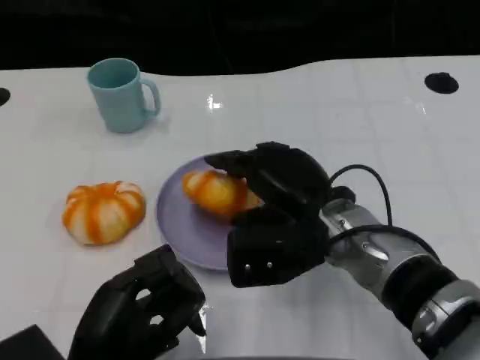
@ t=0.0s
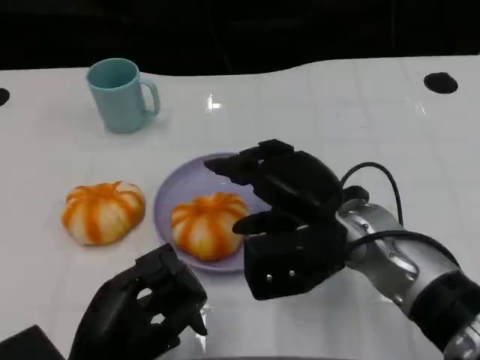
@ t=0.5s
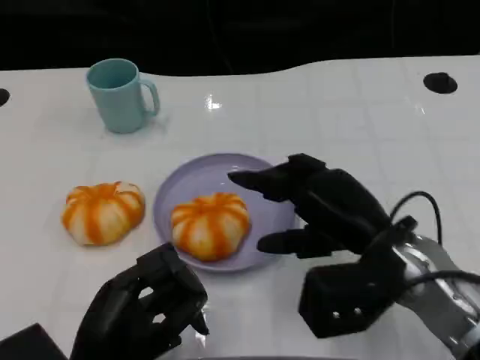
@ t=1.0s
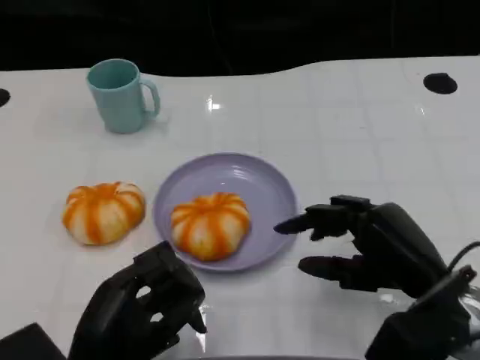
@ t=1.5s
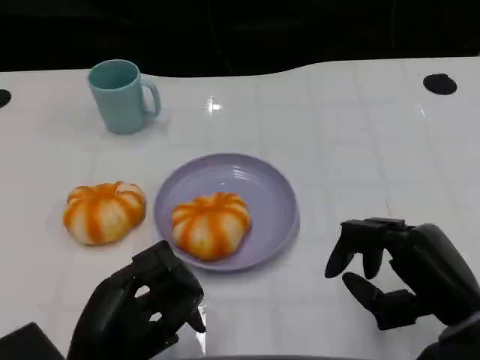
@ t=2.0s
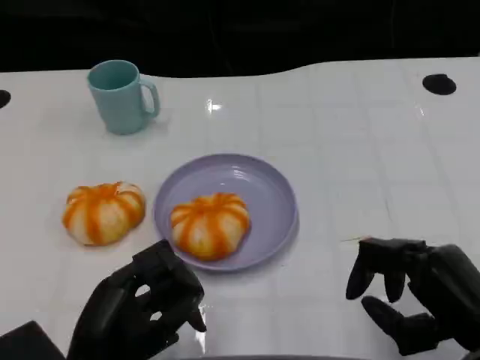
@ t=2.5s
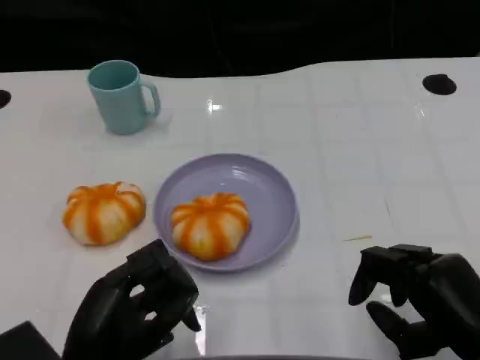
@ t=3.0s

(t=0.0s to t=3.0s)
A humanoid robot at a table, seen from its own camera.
Task of the whole recording: Grasp the bread from the table and place it into the plate.
t=0.0s - t=1.5s: The right hand shifts roughly 15 cm to the right and backward.
t=1.5s - t=3.0s: The right hand travels backward by roughly 5 cm.

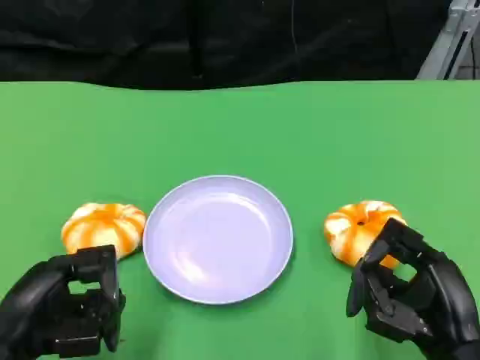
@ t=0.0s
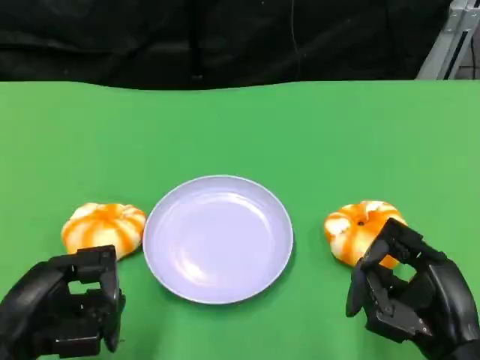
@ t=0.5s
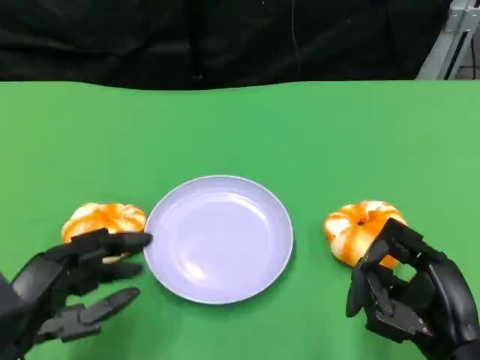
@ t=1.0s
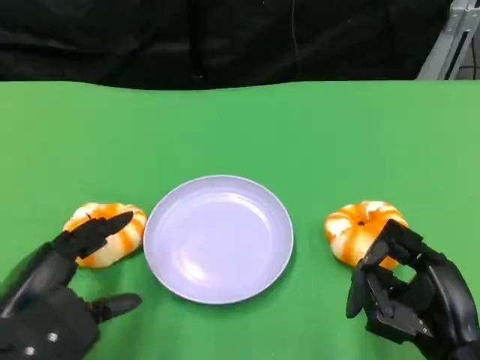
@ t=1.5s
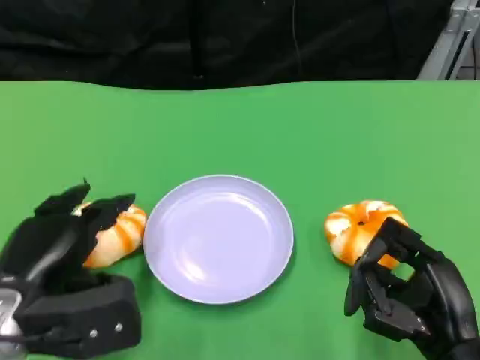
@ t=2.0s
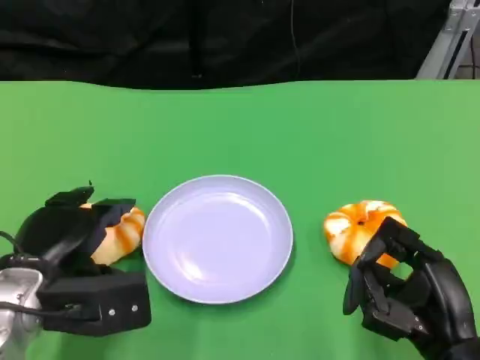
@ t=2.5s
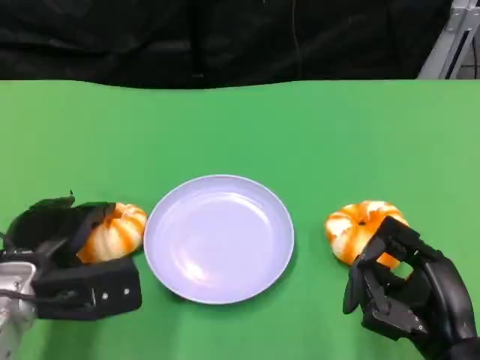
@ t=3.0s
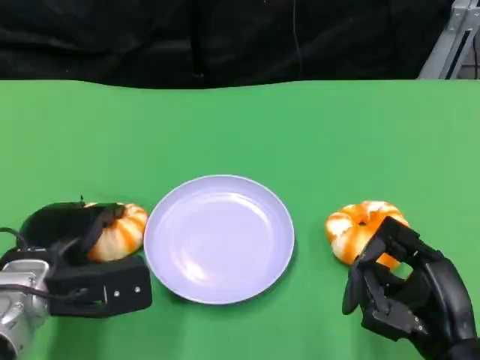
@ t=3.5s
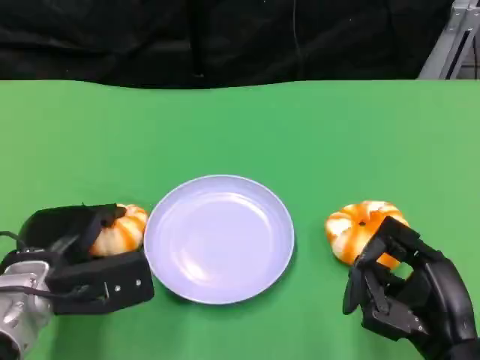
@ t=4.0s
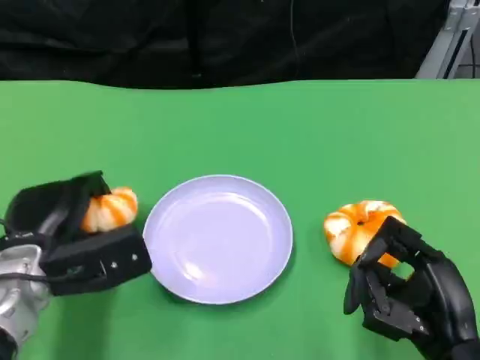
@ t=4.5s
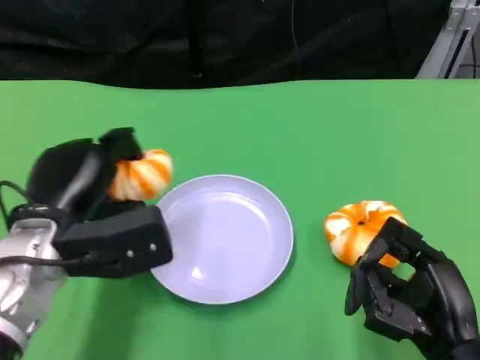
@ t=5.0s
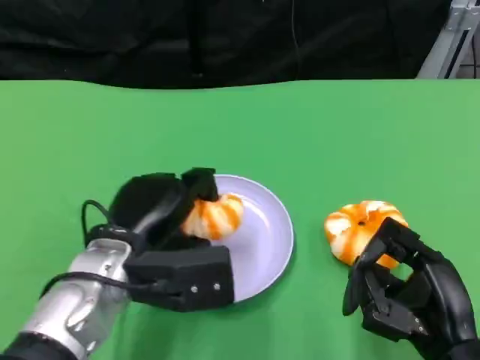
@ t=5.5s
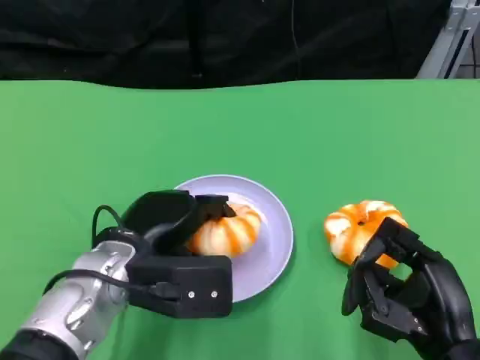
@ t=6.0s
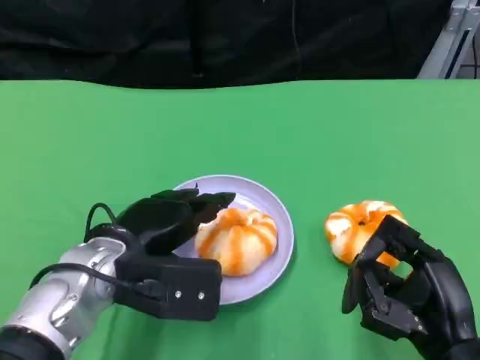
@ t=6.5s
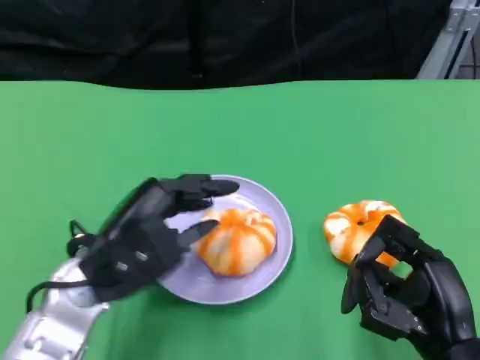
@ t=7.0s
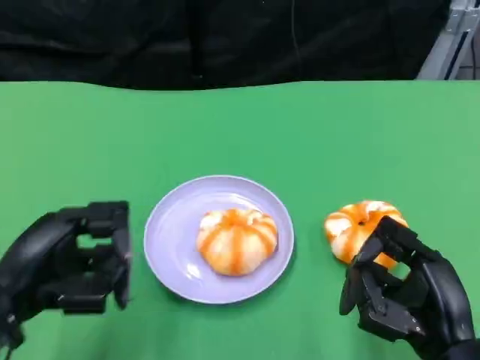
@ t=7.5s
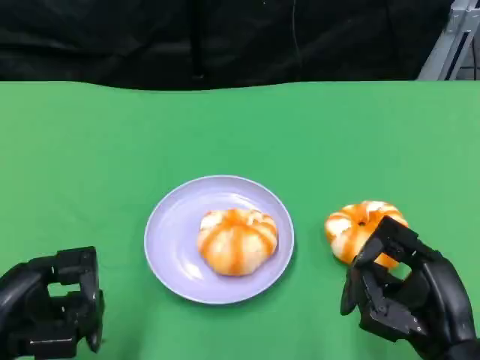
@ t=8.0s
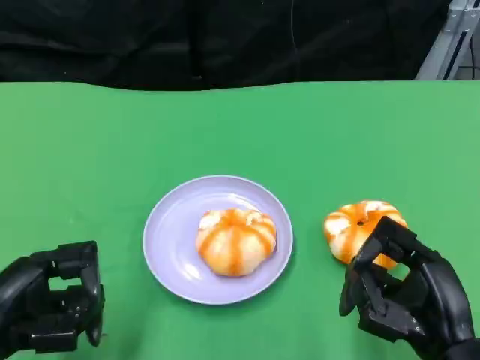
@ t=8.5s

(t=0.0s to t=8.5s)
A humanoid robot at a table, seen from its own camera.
Task of the whole recording: Grasp the bread from the table and place it into the plate.
t=0.0s - t=2.0s: The left hand moves approximately 5 cm.
t=2.0s - t=4.0s: The left hand shifts by approximately 5 cm.
t=4.0s - t=6.5s: The left hand moves to the right, roughly 5 cm.
t=6.5s - t=8.5s: The left hand moves to the left and backward, roughly 15 cm.

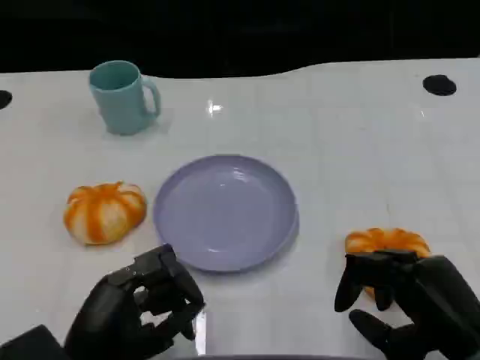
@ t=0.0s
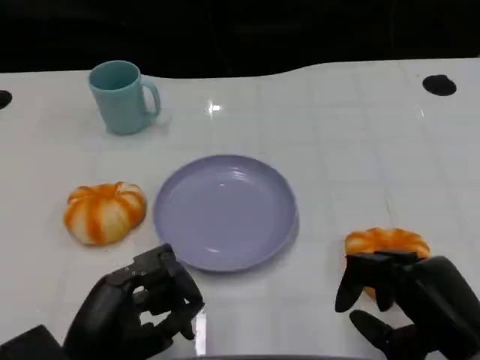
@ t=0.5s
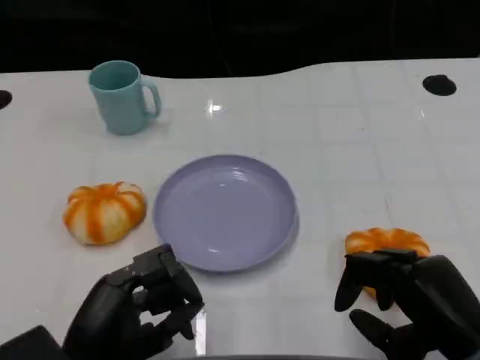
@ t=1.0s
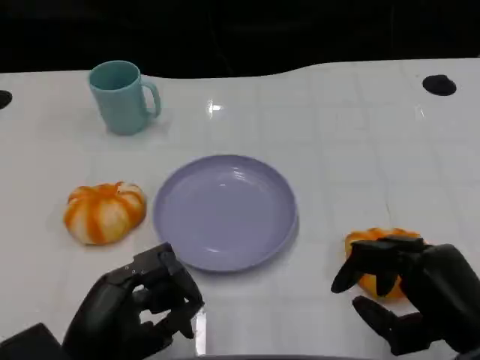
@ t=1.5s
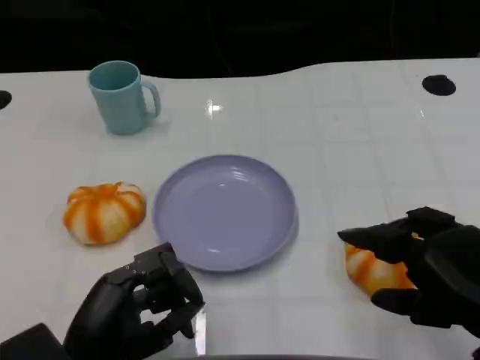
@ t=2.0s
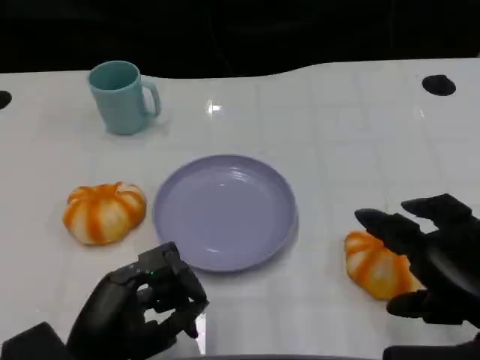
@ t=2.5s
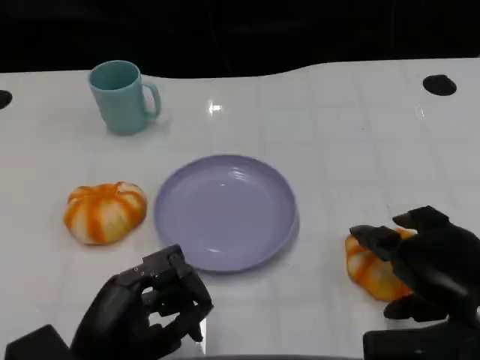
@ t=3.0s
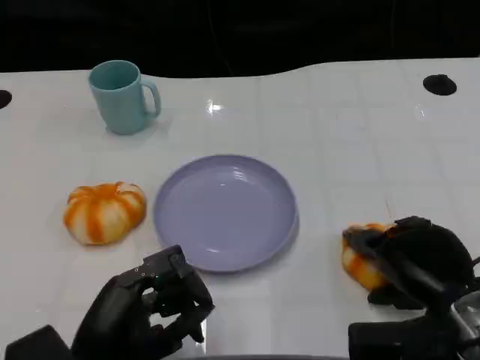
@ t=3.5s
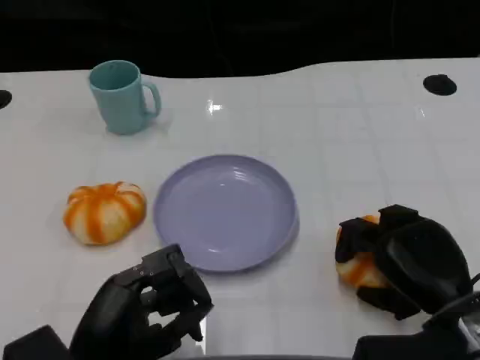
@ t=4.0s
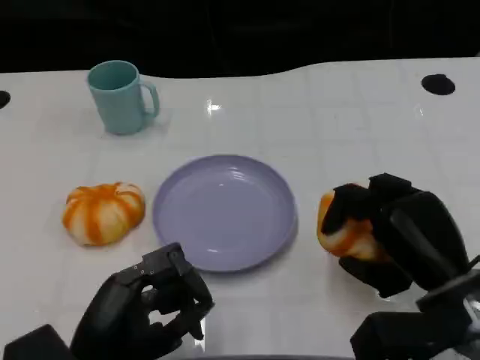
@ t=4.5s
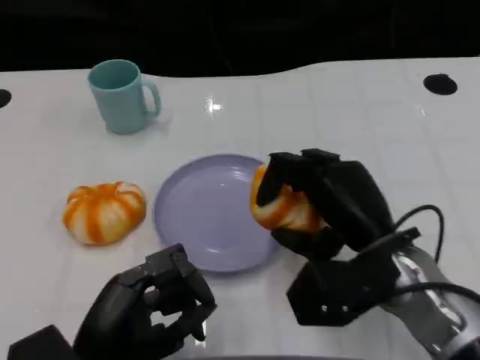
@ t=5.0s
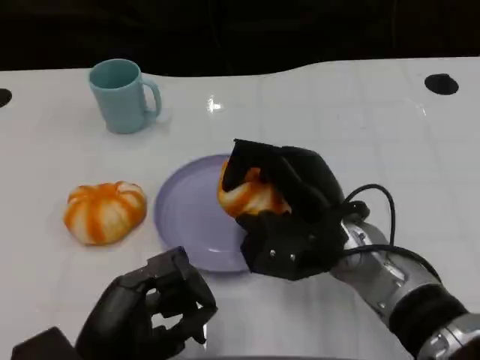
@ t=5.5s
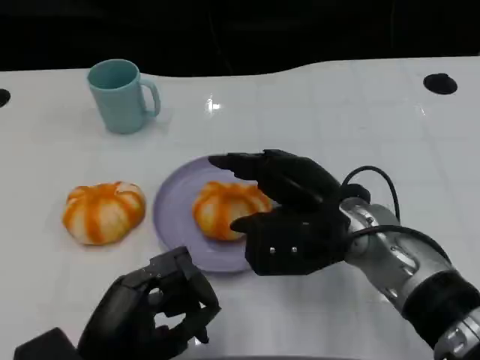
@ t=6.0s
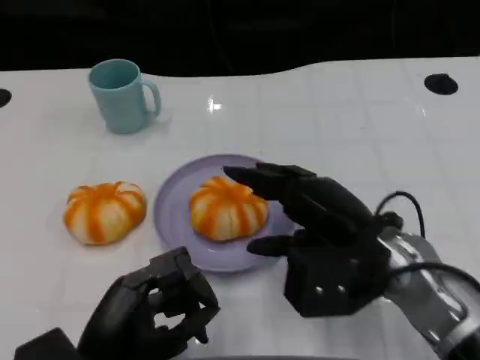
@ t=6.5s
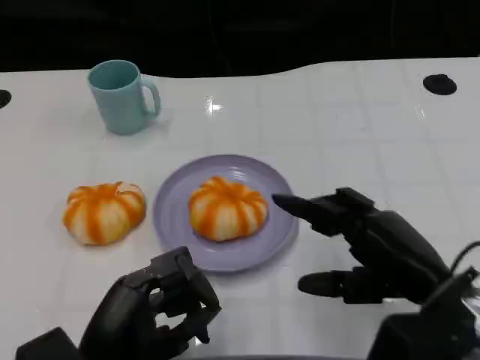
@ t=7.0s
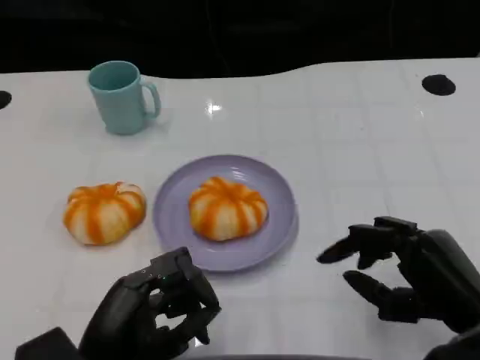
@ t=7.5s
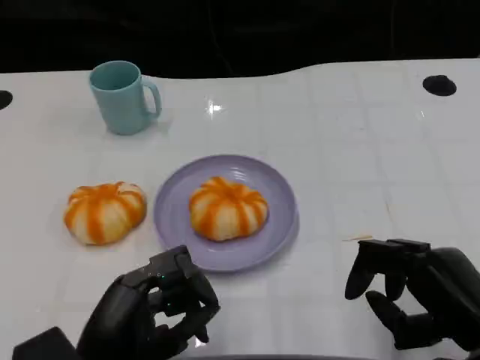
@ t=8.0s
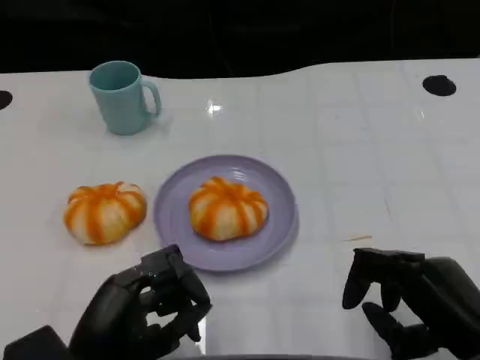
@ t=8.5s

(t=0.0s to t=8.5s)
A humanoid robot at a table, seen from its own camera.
Task of the whole recording: Grasp the bread from the table and place it into the plate.
t=0.0s - t=2.0s: The right hand is displaced upward by about 5 cm.
t=2.0s - t=4.0s: The right hand goes some 10 cm downward and forward.
t=4.0s - t=6.5s: The right hand moves to the left and upward, some 10 cm.
t=6.5s - t=8.5s: The right hand is displaced backward and to the right by about 10 cm.

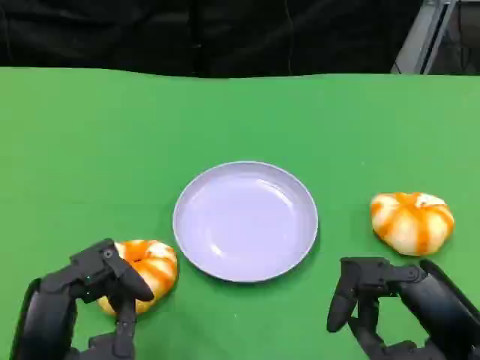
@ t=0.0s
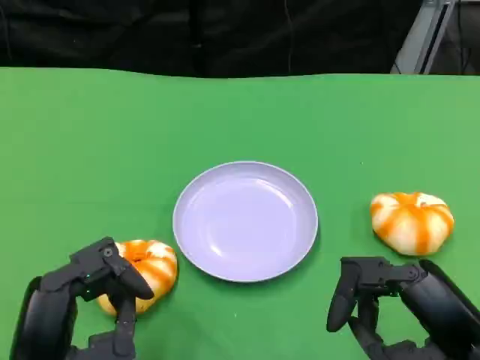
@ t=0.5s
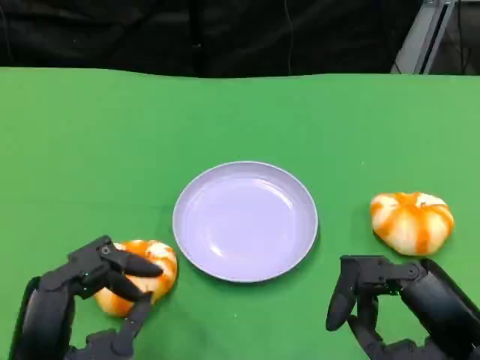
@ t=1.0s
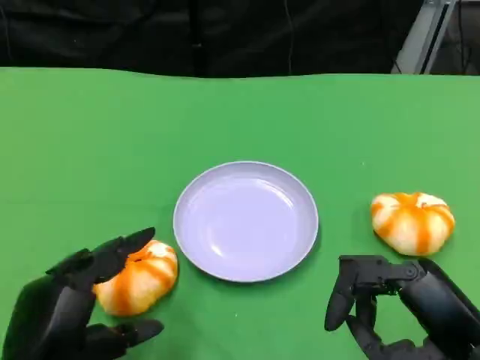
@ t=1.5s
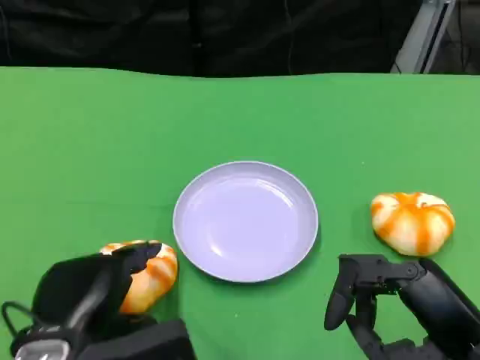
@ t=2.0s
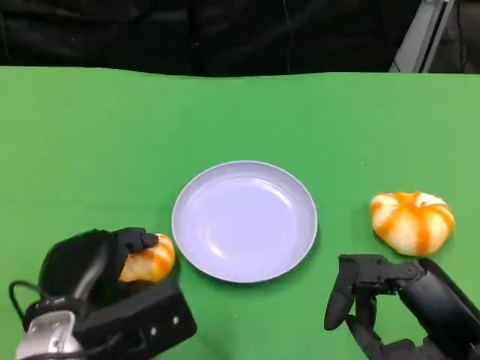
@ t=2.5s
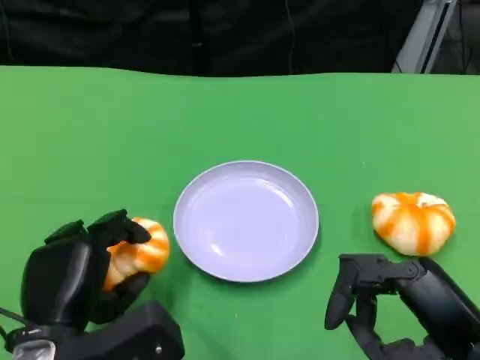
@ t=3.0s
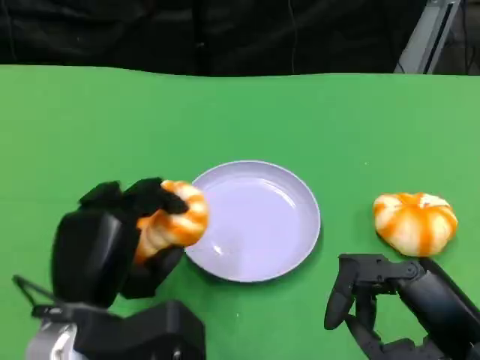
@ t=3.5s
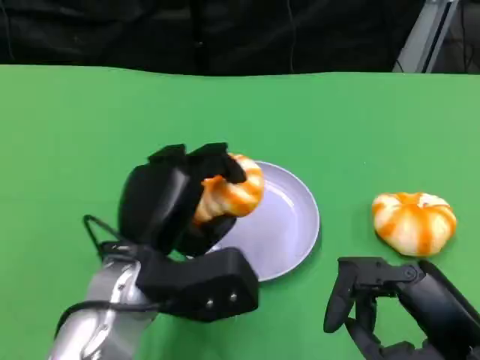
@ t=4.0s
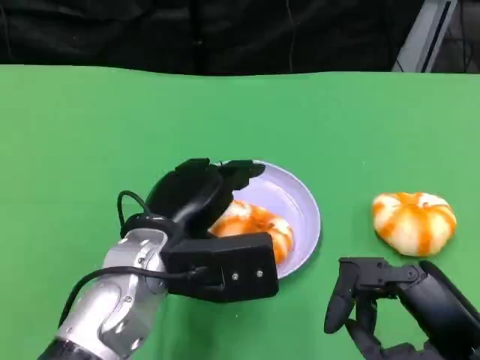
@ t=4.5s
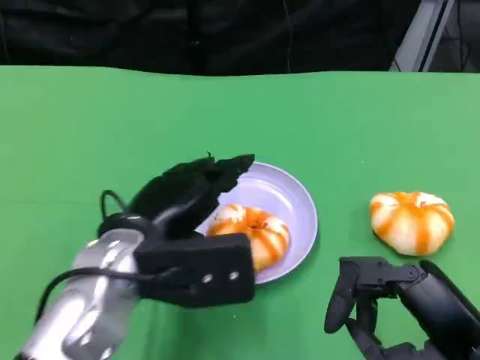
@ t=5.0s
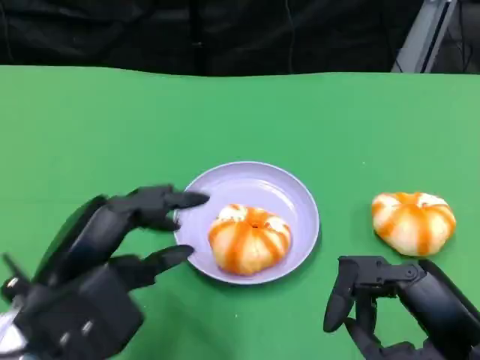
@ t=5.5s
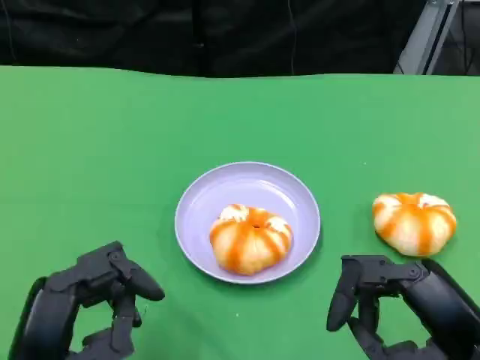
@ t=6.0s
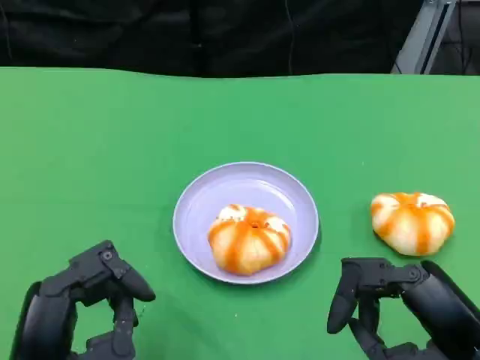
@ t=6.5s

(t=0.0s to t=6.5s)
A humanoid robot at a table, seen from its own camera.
Task of the whole recording: Grasp the bread from the table and place it into the plate.
t=0.0s - t=2.0s: The left hand is displaced forward by some 5 cm.
t=2.0s - t=4.5s: The left hand shifts about 10 cm to the right and forward.
t=4.5s - t=6.5s: The left hand is displaced backward and to the left by some 15 cm.
